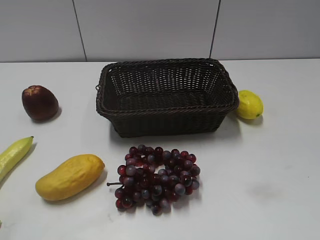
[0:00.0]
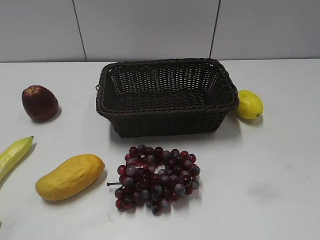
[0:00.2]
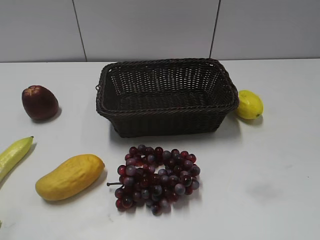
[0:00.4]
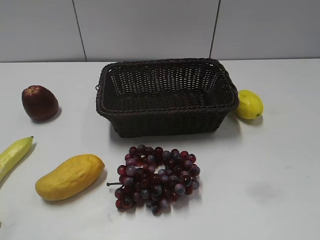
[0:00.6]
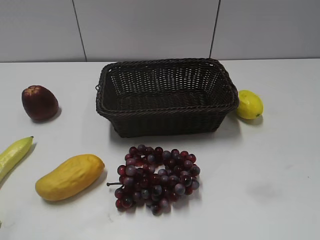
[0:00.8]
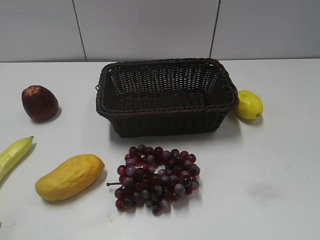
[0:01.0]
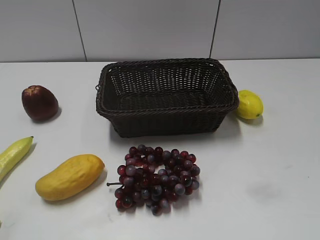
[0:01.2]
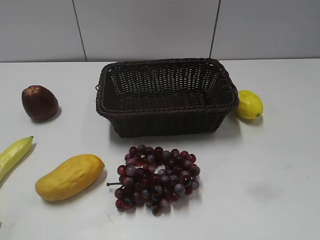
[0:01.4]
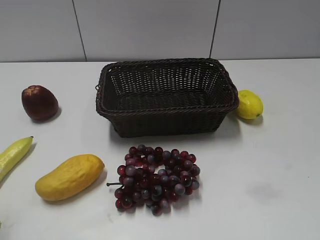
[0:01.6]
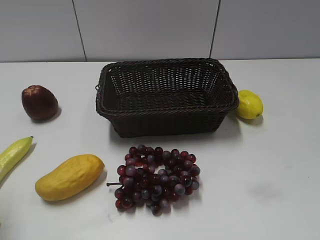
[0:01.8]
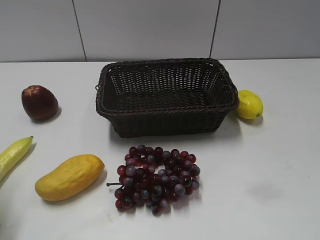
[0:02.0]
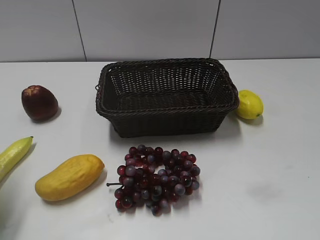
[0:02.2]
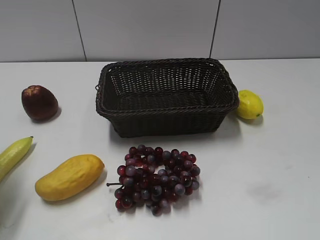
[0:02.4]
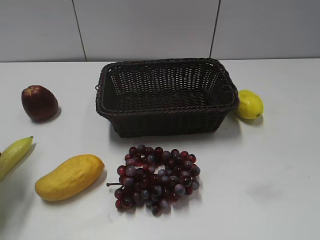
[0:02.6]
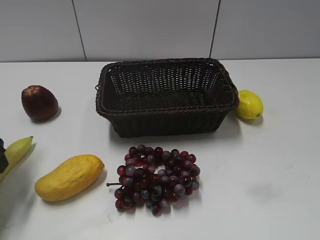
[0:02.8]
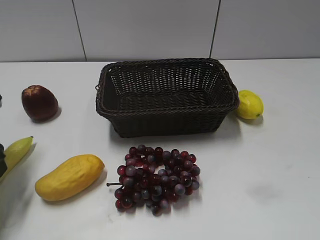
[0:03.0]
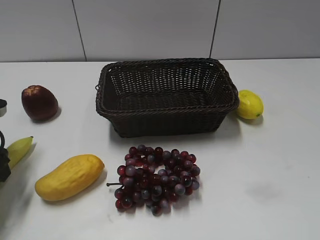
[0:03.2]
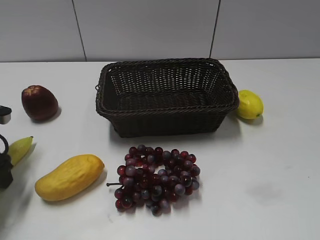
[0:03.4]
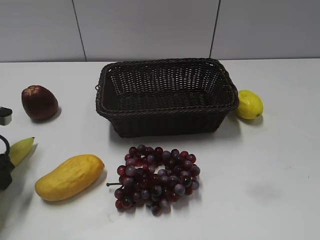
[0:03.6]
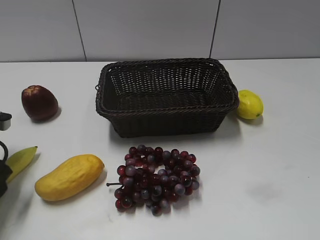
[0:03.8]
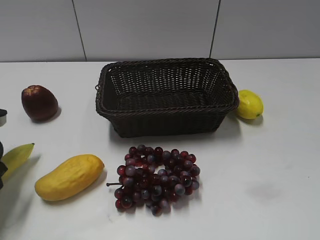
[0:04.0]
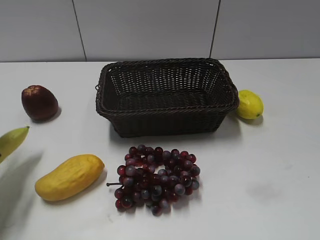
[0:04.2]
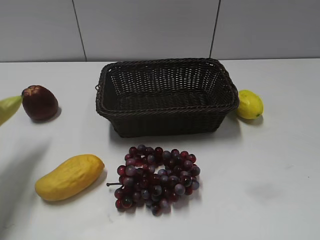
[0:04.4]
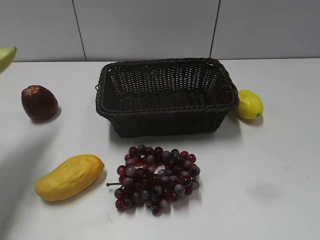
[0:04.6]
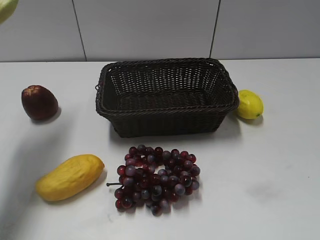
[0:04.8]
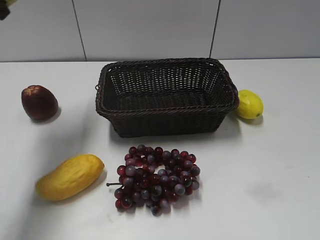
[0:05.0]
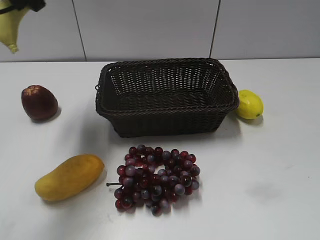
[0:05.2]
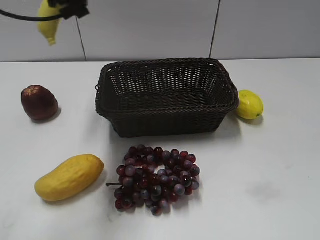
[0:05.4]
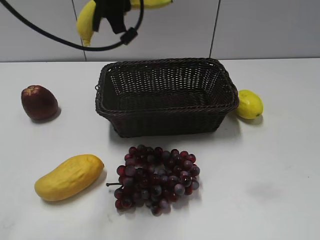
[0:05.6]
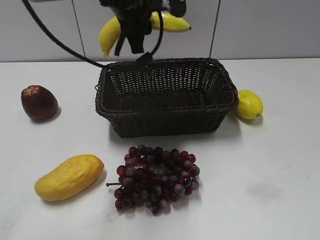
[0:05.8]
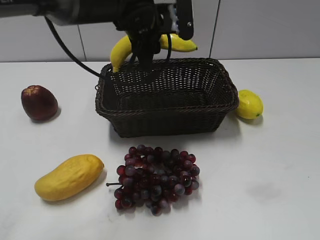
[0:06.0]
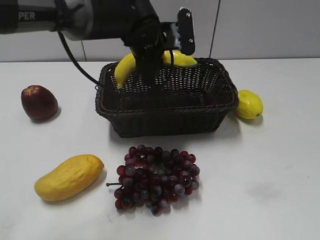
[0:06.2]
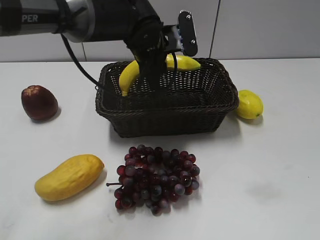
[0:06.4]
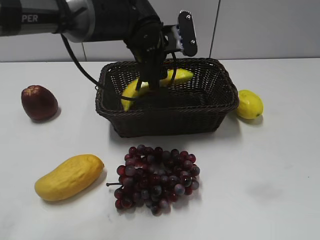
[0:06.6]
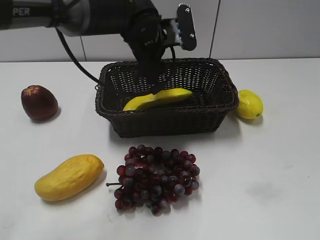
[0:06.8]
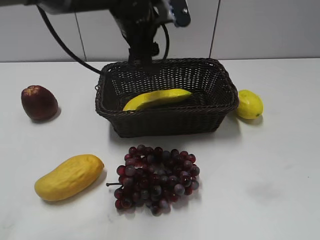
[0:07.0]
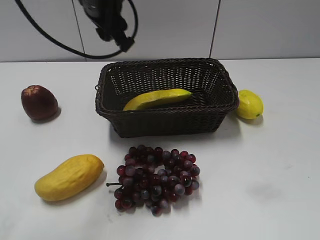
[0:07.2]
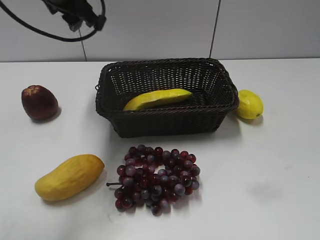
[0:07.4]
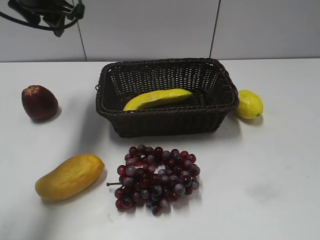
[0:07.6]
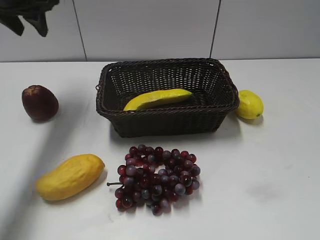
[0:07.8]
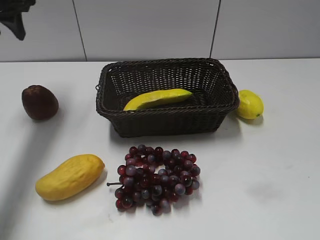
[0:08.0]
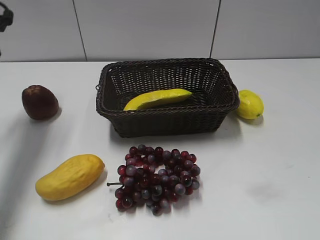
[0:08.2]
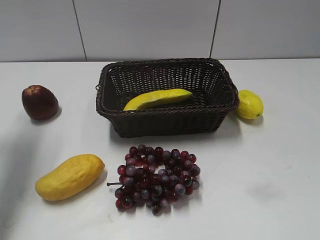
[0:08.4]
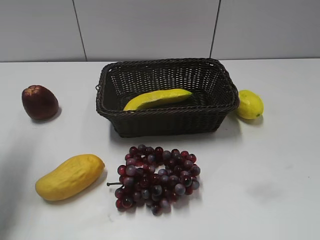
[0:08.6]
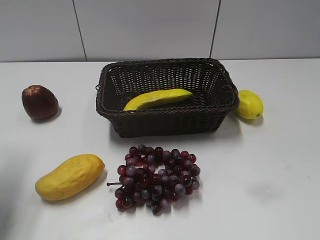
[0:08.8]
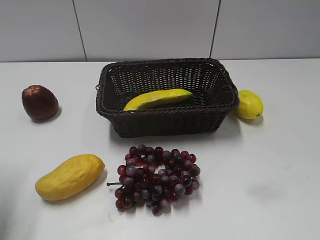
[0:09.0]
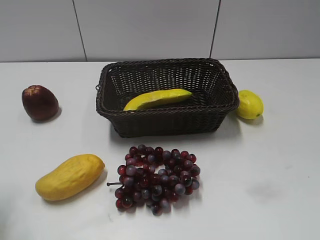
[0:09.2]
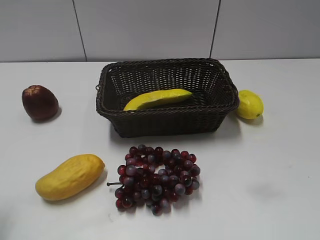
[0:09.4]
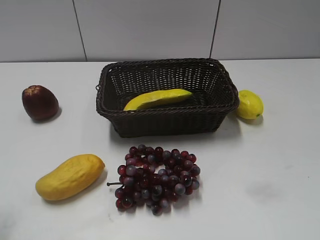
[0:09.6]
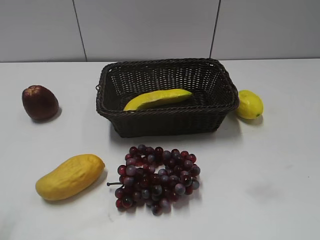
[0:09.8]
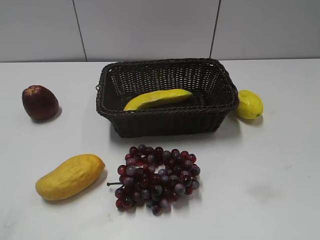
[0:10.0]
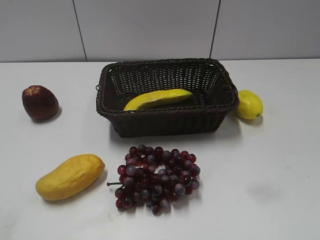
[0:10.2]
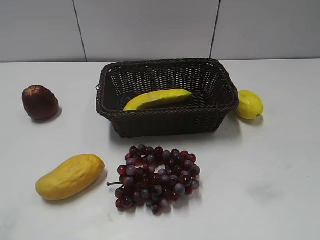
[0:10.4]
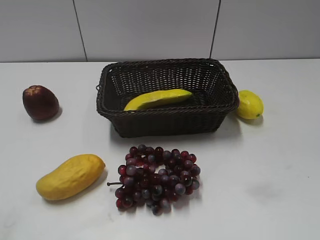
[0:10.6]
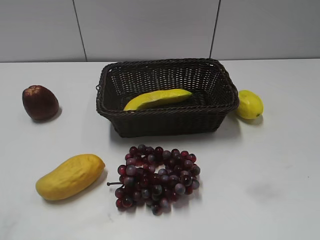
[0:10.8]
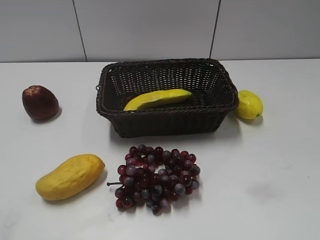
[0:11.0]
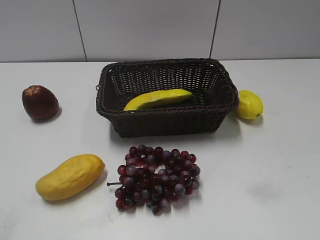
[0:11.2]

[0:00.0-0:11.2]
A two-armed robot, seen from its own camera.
Step, 0:03.8 to 0:06.8: Place the banana in the basket with left gripper.
0:01.6 to 0:03.2: The left gripper goes about 20 cm forward and downward, and opens.
0:03.2 to 0:04.8: The left gripper heads upward, covering roughly 20 cm, and closes up.
0:04.8 to 0:06.4: The left gripper moves to the right and downward, approximately 30 cm.
0:06.4 to 0:08.0: The left gripper heads to the left, covering roughly 25 cm, and opens its fingers.
0:08.0 to 0:09.6: The left gripper shifts roughly 30 cm backward.
